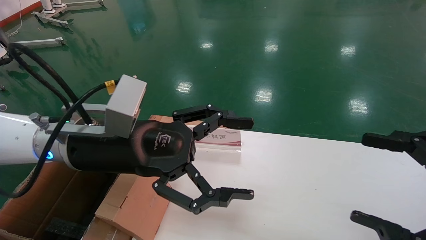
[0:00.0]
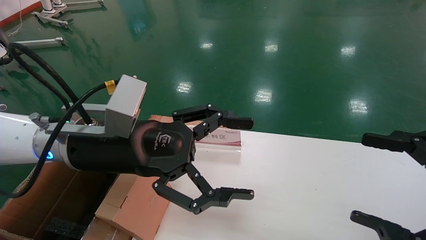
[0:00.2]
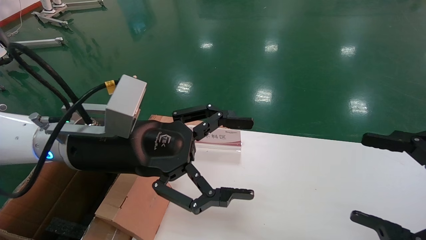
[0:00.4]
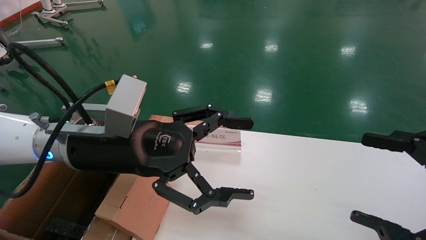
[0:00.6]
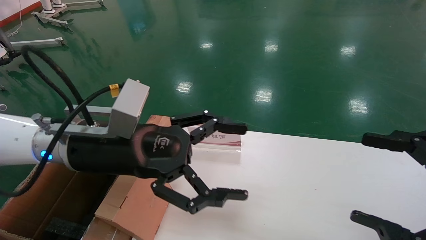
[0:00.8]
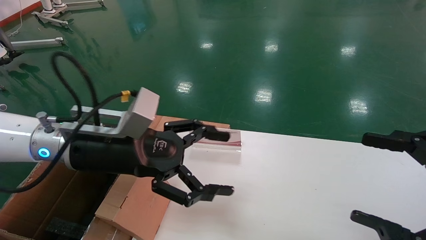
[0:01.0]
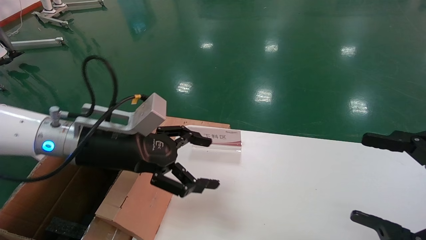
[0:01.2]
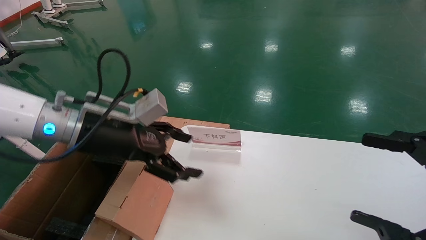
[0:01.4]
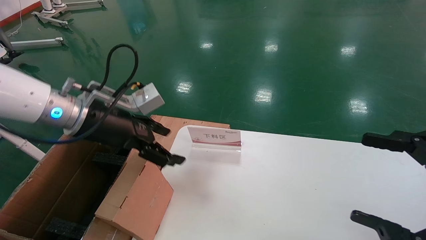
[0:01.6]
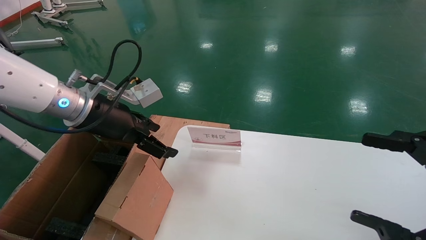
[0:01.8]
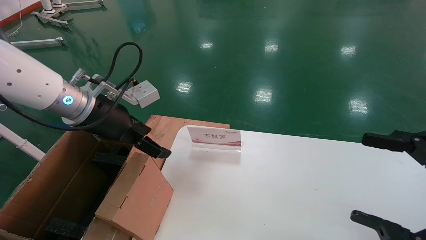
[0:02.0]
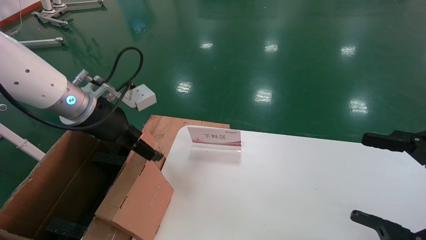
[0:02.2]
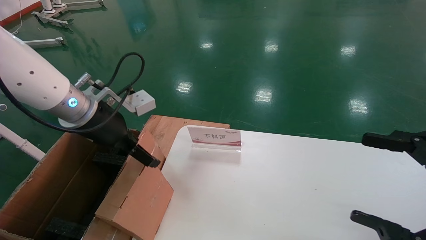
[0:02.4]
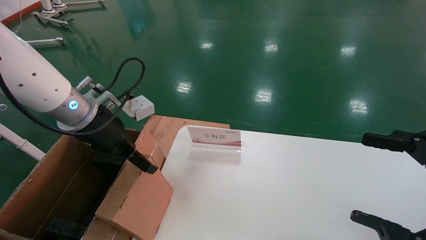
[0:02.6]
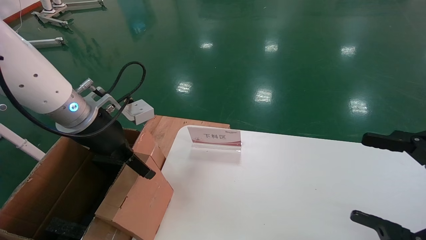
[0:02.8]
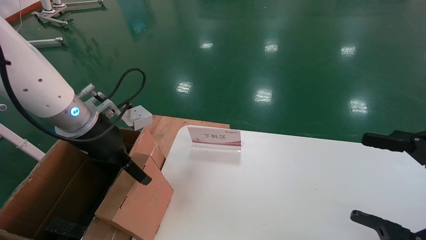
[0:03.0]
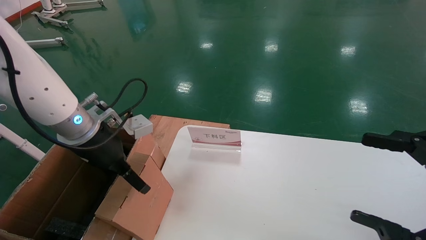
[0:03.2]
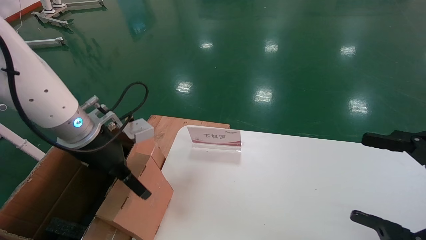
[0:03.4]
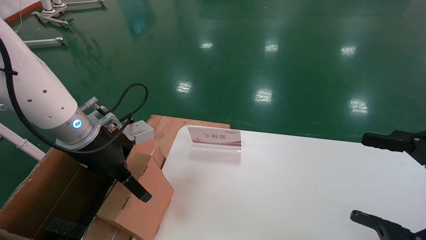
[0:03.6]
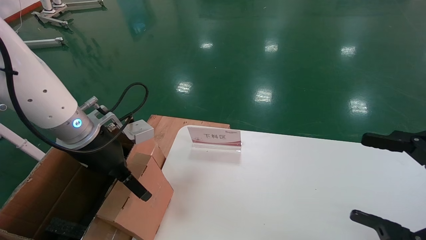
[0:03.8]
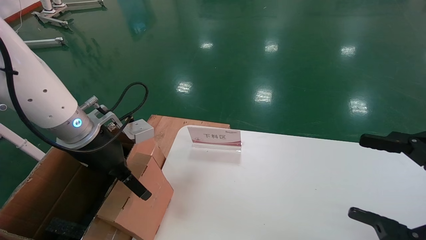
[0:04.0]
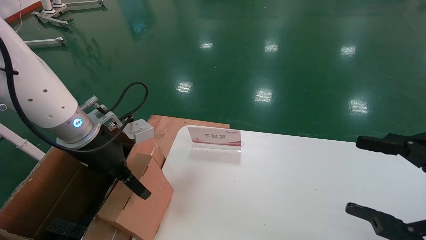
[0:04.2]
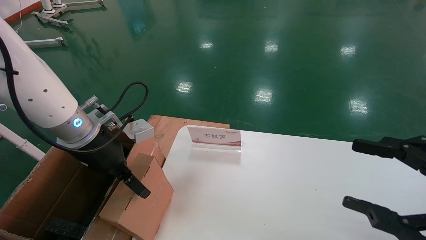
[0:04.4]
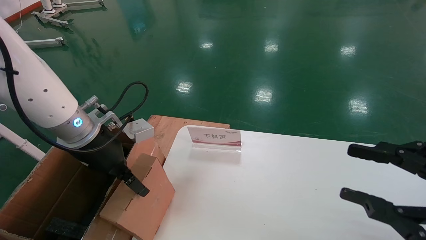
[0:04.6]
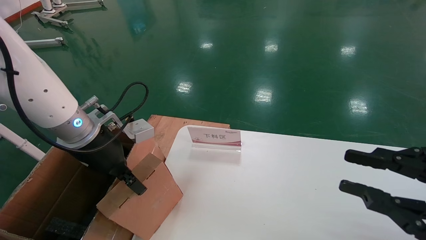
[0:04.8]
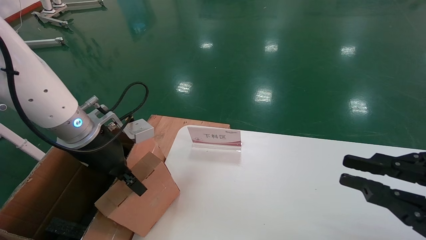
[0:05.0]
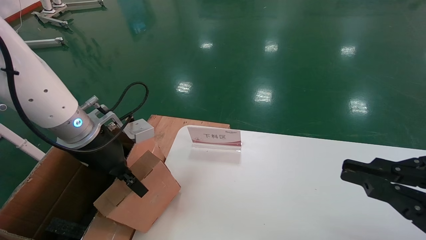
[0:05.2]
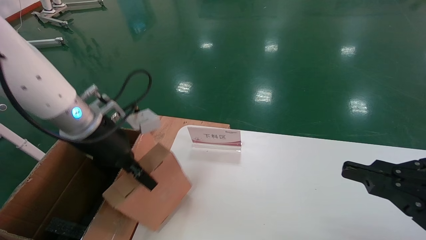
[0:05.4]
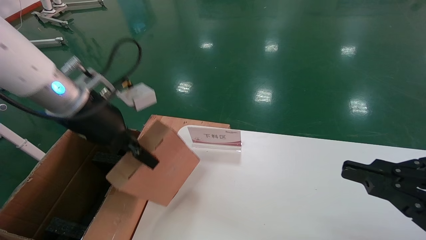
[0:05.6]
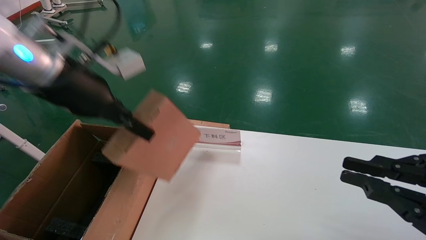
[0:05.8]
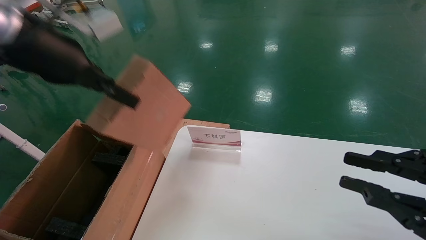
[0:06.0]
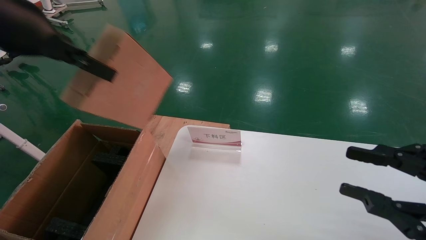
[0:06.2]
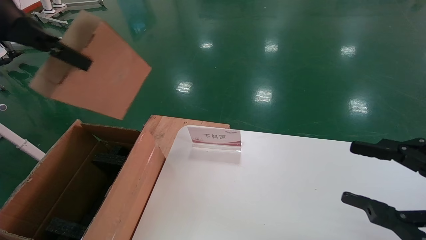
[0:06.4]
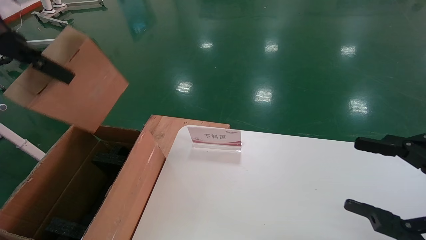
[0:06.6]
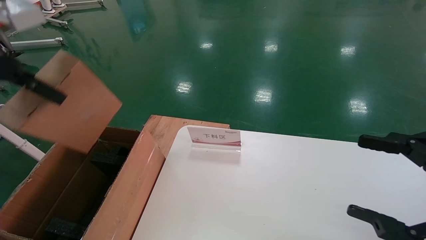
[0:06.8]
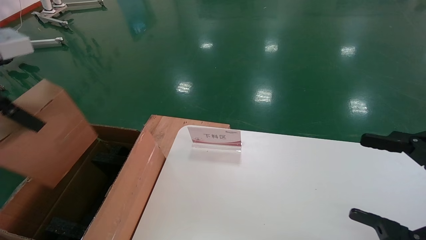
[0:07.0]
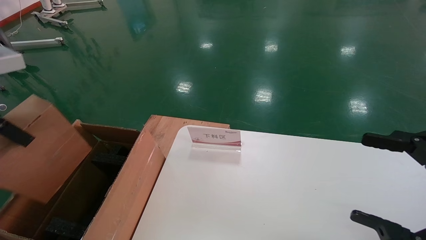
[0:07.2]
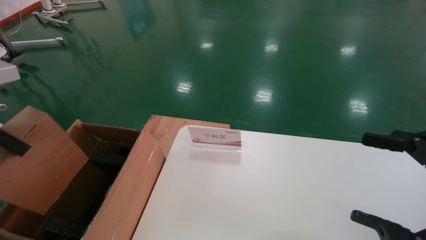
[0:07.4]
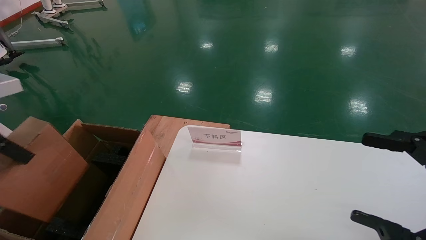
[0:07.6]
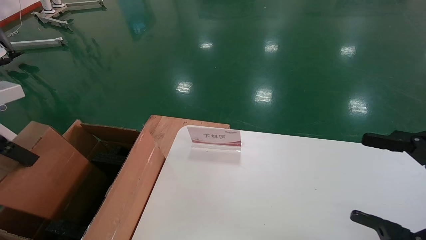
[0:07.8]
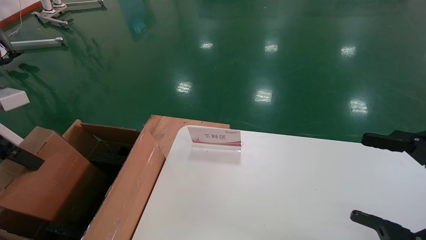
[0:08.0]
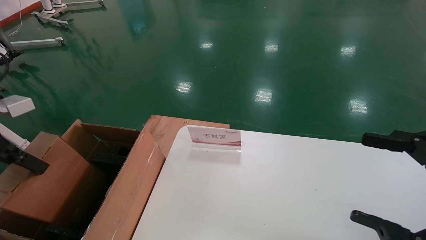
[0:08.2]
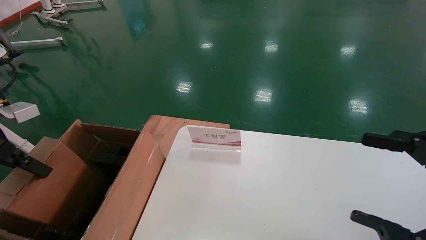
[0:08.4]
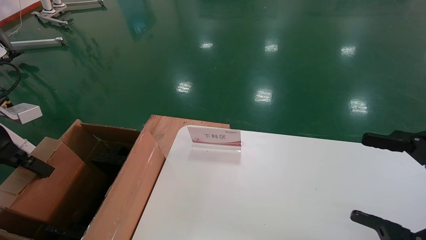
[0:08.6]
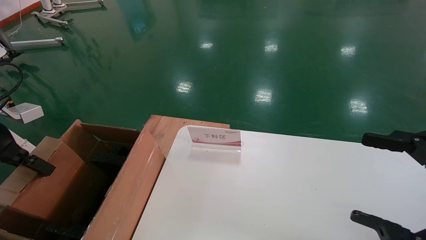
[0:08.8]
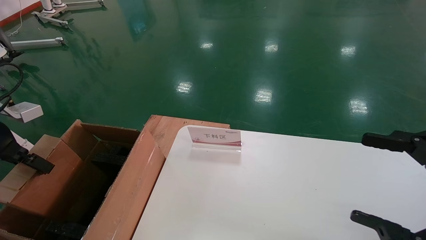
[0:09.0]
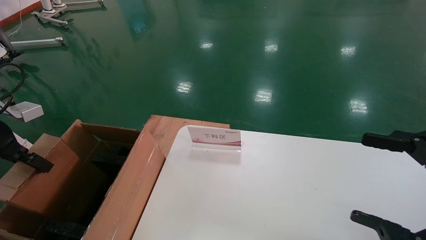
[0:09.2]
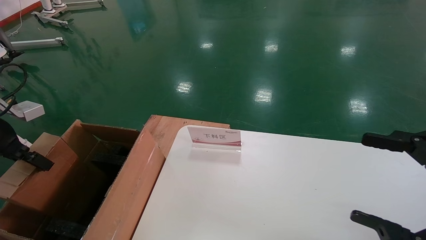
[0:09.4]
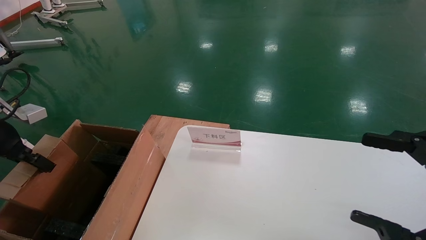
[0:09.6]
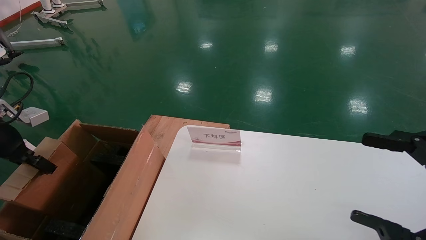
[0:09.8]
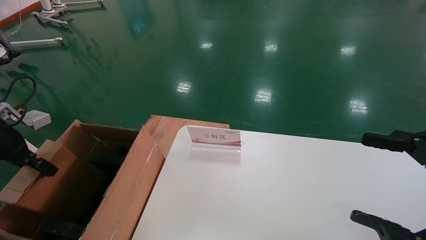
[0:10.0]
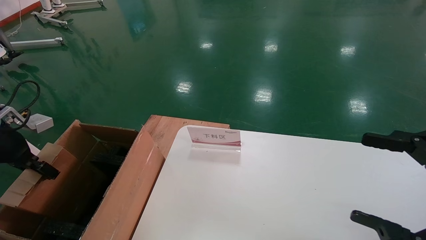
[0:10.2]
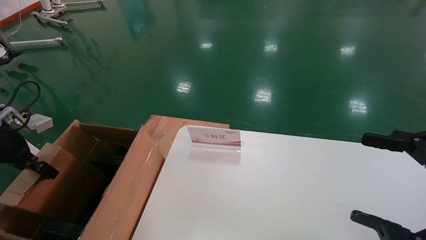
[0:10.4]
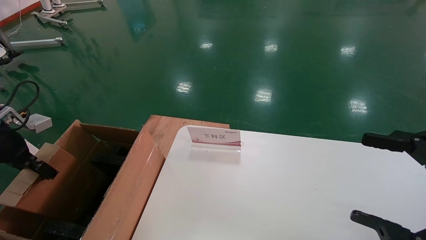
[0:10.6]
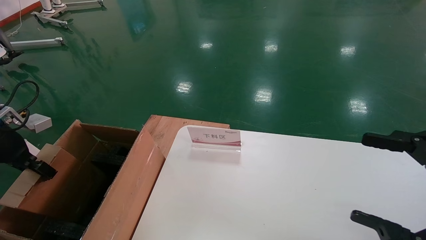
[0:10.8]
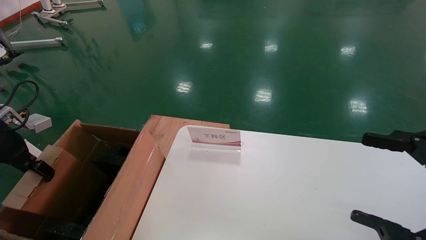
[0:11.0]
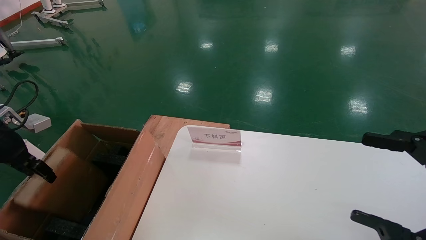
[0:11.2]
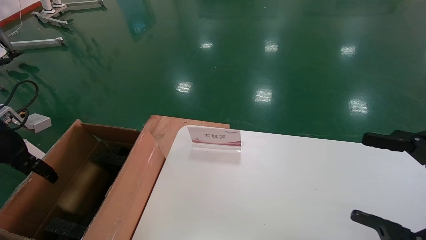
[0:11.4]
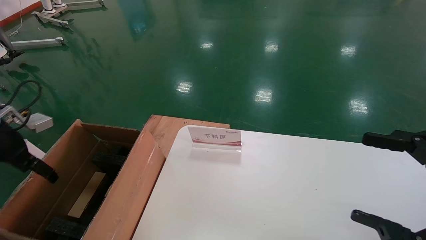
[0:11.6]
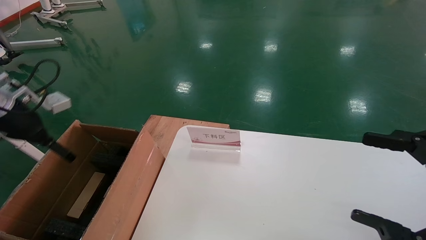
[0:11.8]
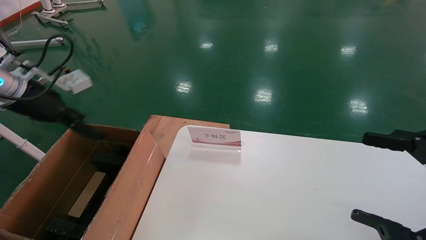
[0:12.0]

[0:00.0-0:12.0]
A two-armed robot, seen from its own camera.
Task of the whole recording: pick up the small cardboard box and load it into the large cardboard box.
Step, 0:01.0 to 0:05.0: Pick up the mouse and power cord box.
Step, 0:05.2 to 0:11.2: Place the mouse and power cord box into the case.
0:00.0 to 0:01.6: The left gripper shifts about 10 cm to the left and forward.
0:03.0 to 0:04.4: The grippers make only small movements.
0:04.4 to 0:06.0: The left gripper travels upward by some 15 cm, and closes, while the right gripper closes.
0:06.0 to 0:07.6: The right gripper opens its fingers, while the left gripper goes some 15 cm to the left, downward and backward.
0:07.6 to 0:09.0: The left gripper travels downward, to the left and forward by approximately 10 cm.
0:09.0 to 0:10.4: The left gripper changes place by about 5 cm.
0:10.4 to 0:12.0: The left gripper moves to the right and upward, roughly 10 cm, and opens its fingers.

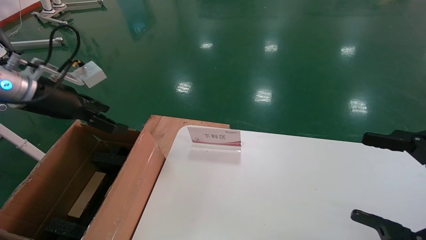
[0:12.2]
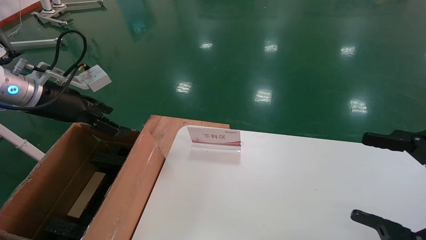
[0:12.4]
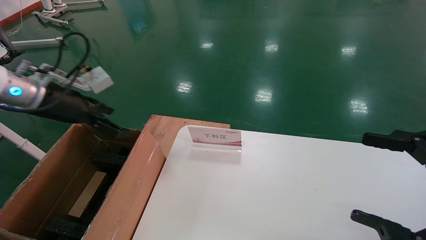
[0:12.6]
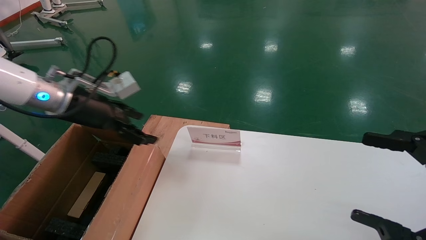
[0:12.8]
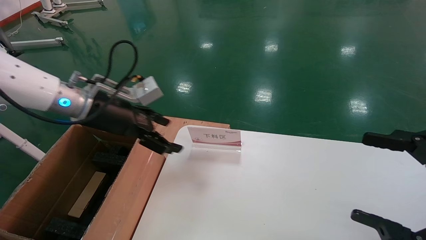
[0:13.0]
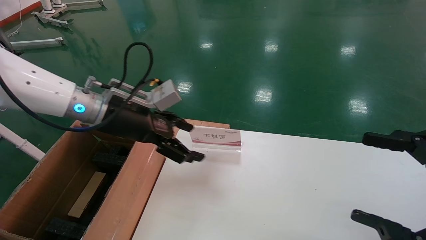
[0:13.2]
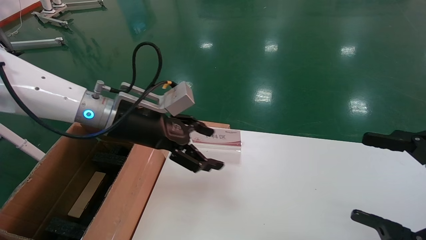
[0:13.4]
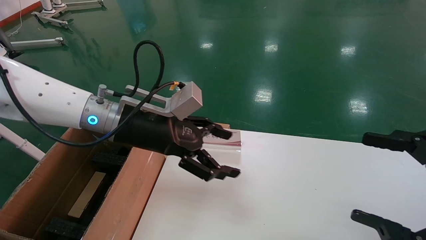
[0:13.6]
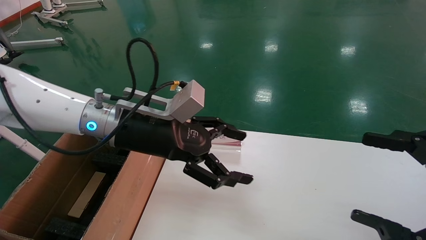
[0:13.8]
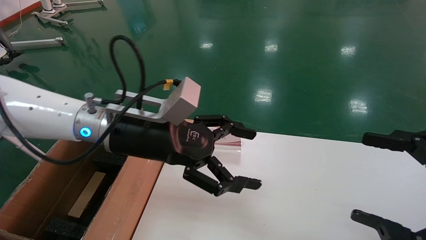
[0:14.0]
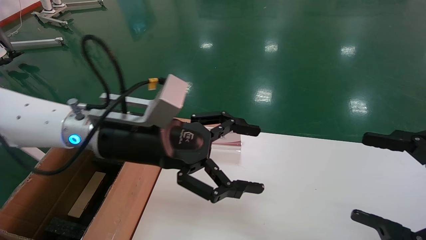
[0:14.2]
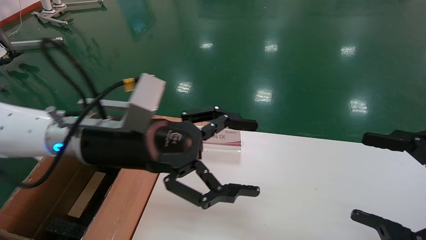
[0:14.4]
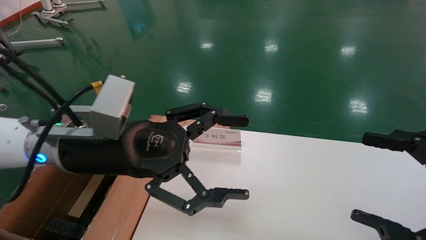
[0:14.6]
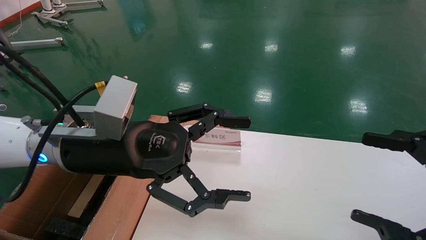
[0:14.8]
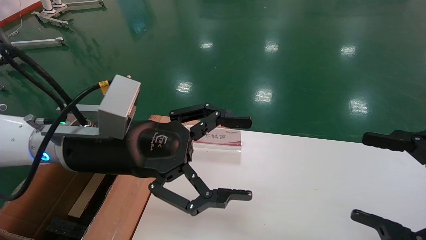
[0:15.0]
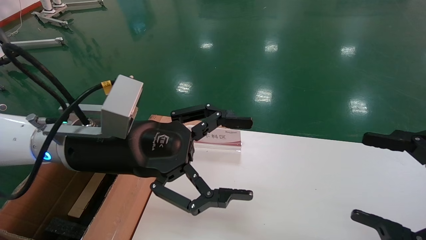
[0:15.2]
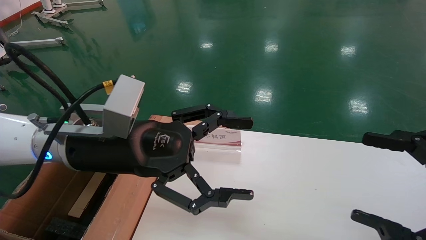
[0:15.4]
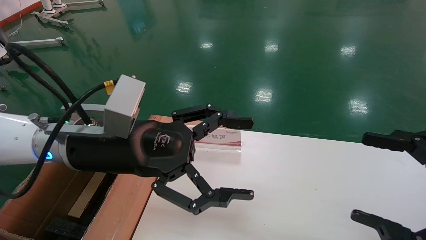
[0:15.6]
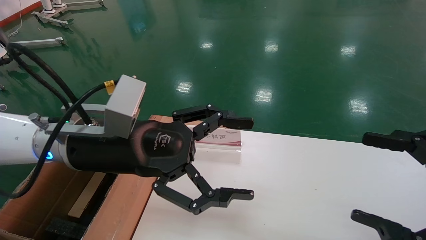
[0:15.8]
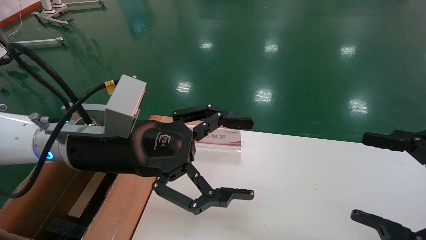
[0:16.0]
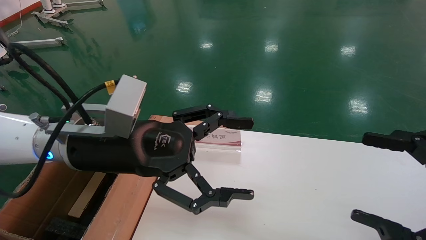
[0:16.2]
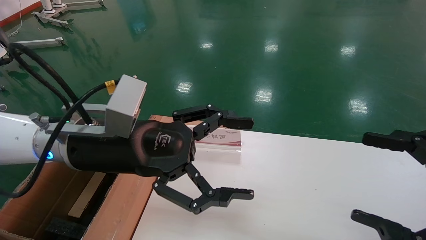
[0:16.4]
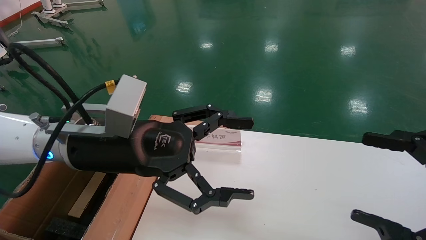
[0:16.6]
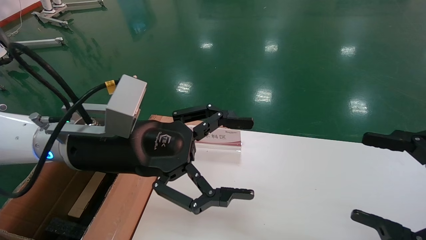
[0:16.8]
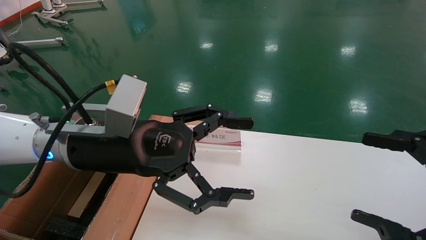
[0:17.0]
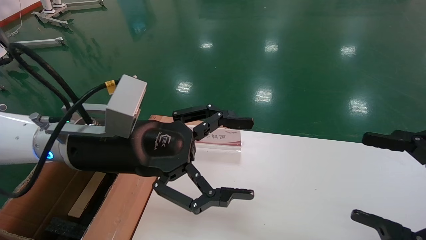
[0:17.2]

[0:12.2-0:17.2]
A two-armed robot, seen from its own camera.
Task of the whole recording: pick up the small cardboard box and load it into the large cardboard box.
0:12.2 to 0:13.8: The left gripper heads to the right, covering some 25 cm.
0:13.8 to 0:15.6: The left gripper moves backward, some 5 cm.
0:15.6 to 0:17.2: Neither gripper changes place.
